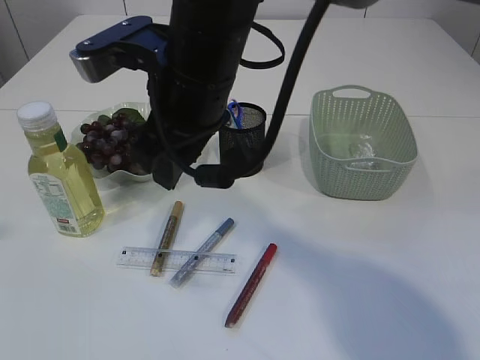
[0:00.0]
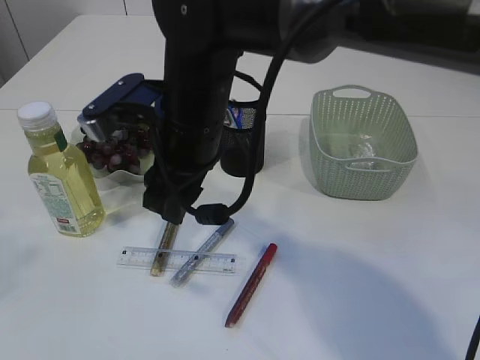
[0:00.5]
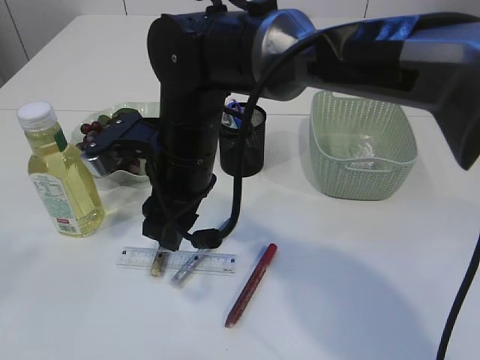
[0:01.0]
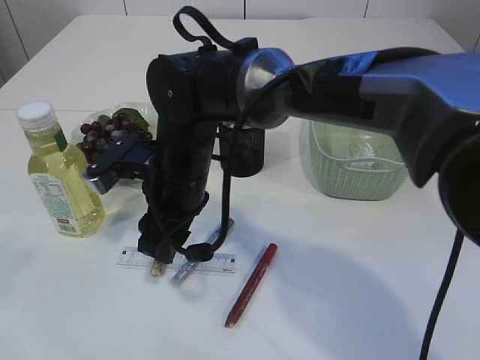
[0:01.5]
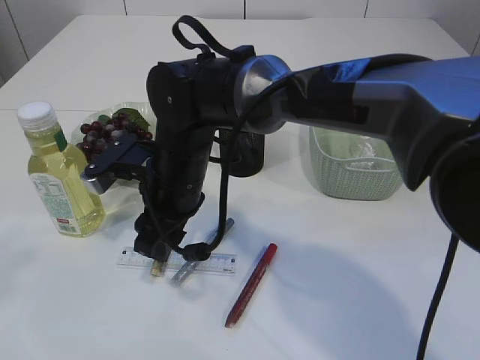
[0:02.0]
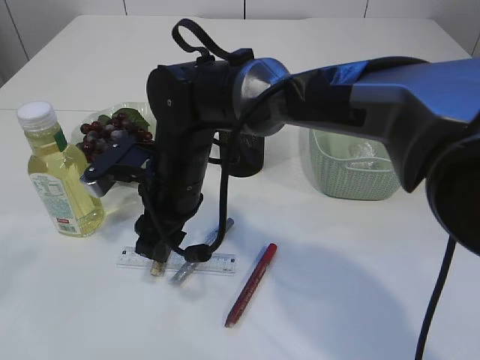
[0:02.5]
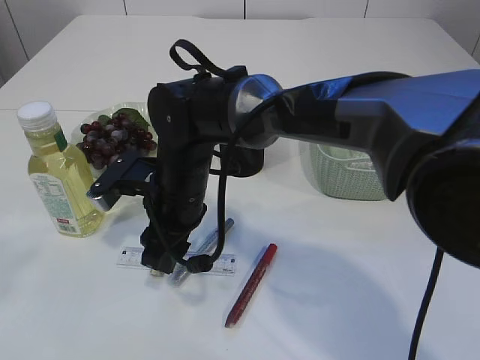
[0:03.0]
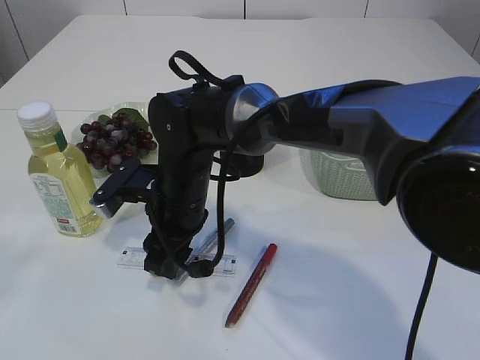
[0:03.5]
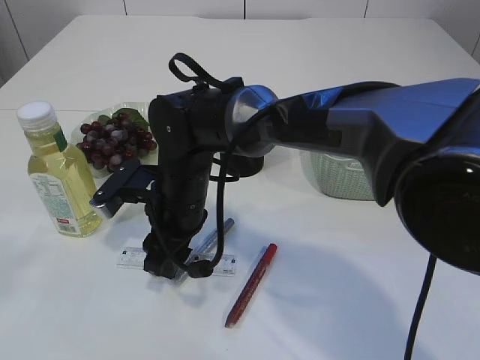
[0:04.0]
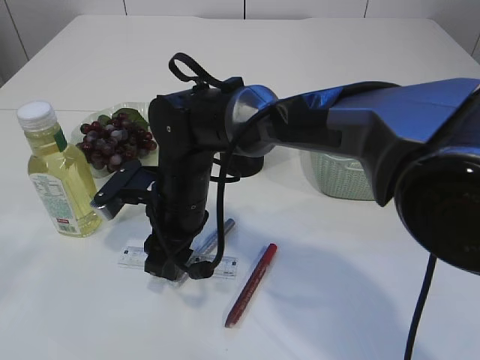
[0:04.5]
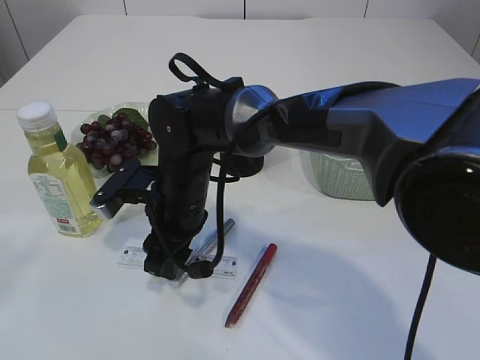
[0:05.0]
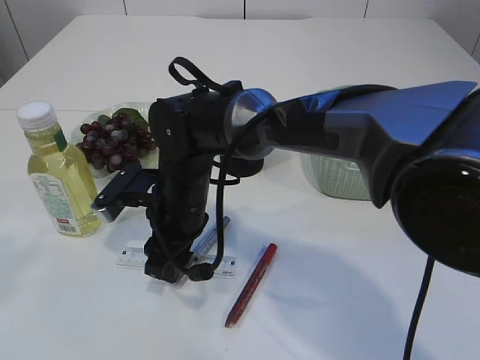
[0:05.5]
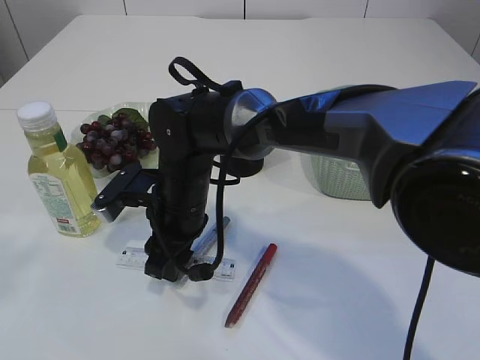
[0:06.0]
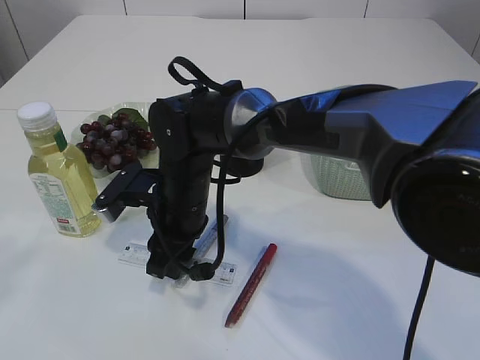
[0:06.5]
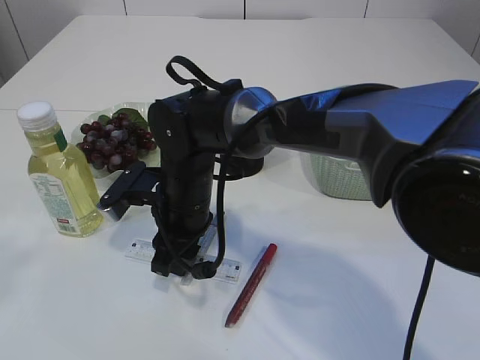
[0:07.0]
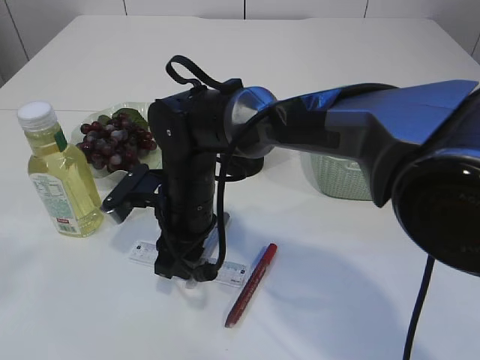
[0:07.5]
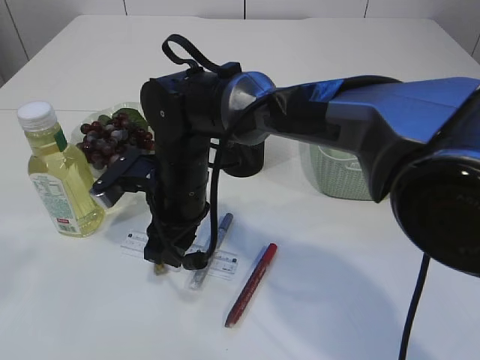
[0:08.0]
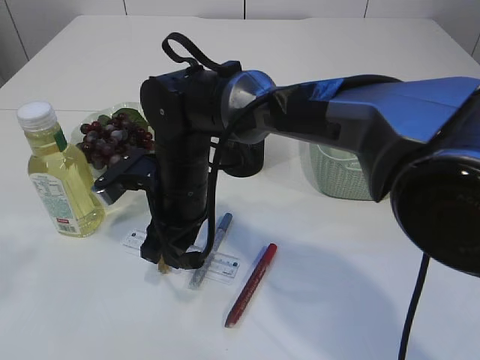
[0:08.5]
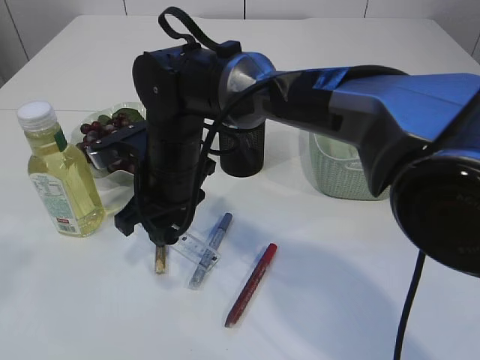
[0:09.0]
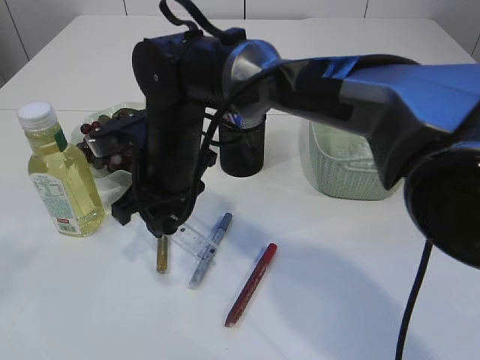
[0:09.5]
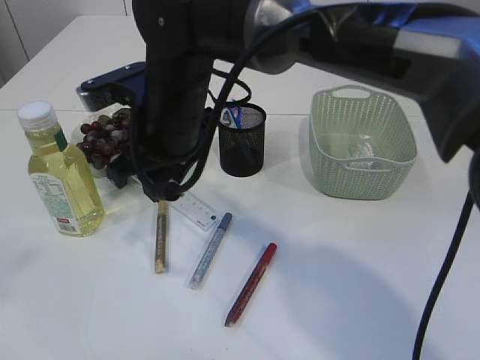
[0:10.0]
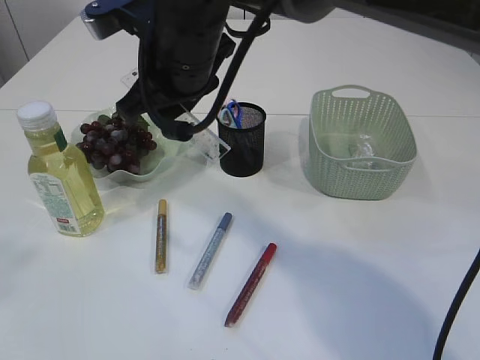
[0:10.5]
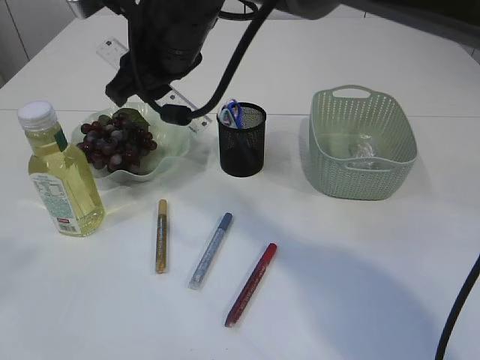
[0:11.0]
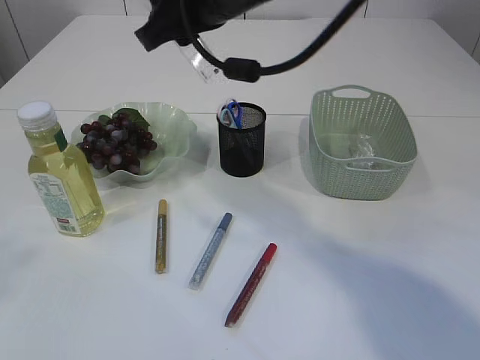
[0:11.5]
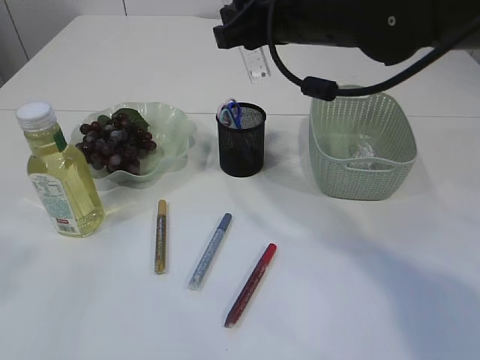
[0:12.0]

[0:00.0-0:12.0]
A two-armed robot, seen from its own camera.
Step, 0:00.0 to 0:10.0: pick up the ruler.
0:00.0 to 0:02.0: The right gripper shifts some 15 cm downward.
0:04.0 to 0:06.0: Both grippers stay put.
0:06.0 to 0:08.0: The grippers move only a little.
0:08.0 to 0:10.0: The right gripper heads upward, covering some 10 cm.
0:10.0 to 0:12.0: The right gripper moves to the right and upward, about 15 cm.

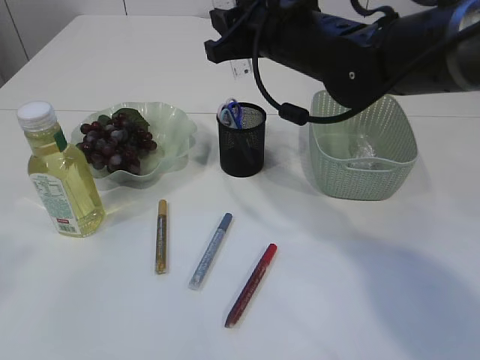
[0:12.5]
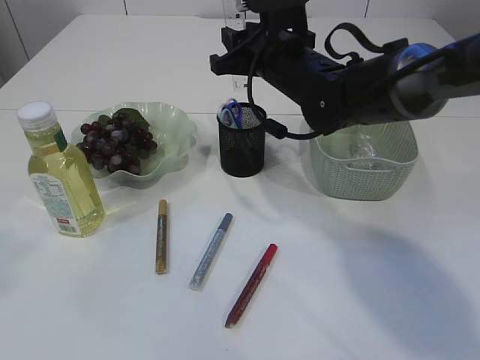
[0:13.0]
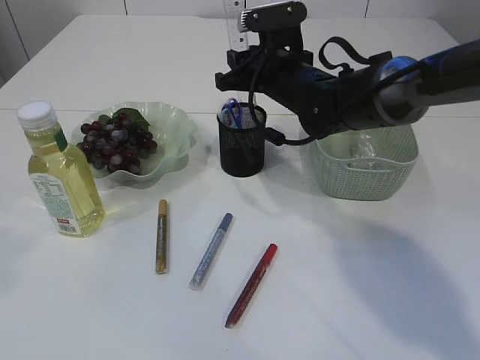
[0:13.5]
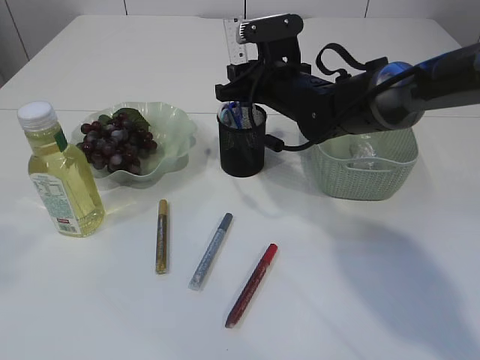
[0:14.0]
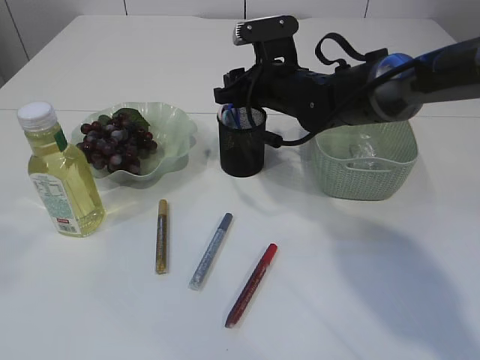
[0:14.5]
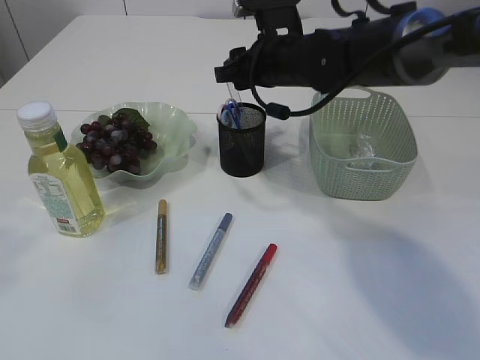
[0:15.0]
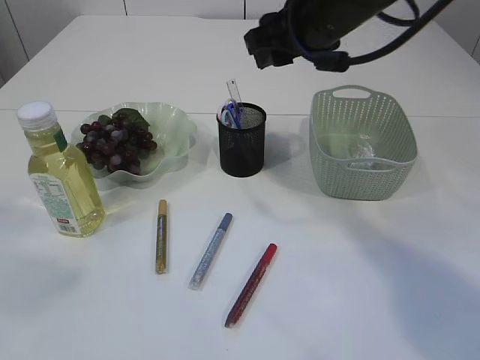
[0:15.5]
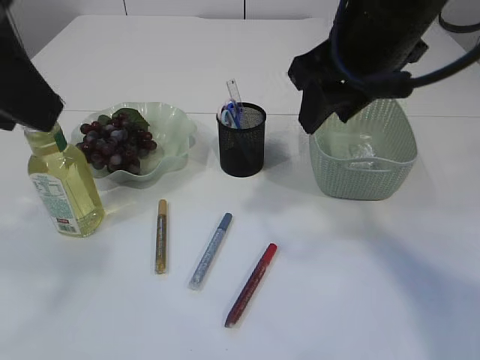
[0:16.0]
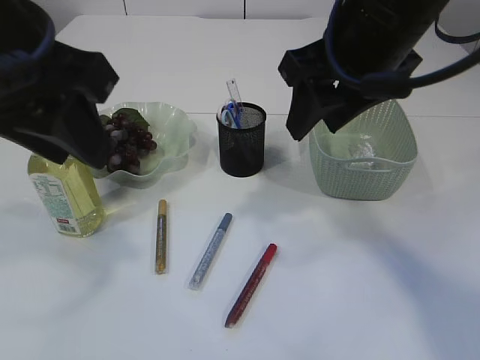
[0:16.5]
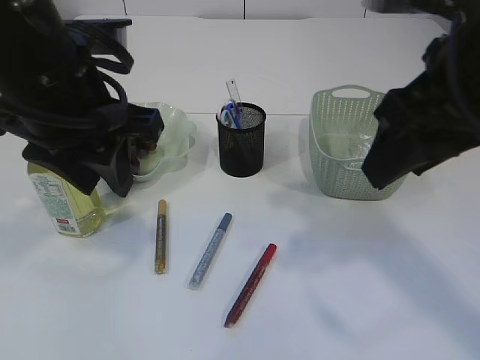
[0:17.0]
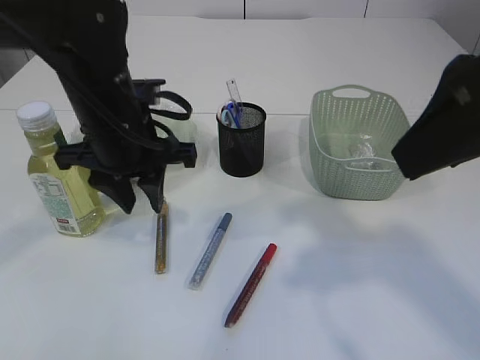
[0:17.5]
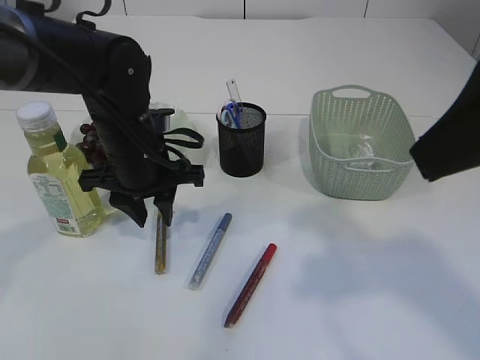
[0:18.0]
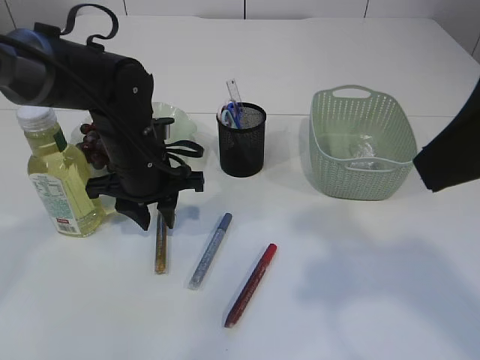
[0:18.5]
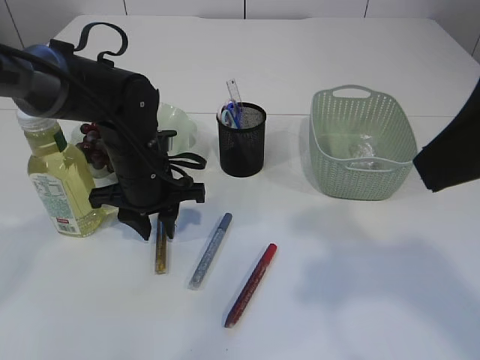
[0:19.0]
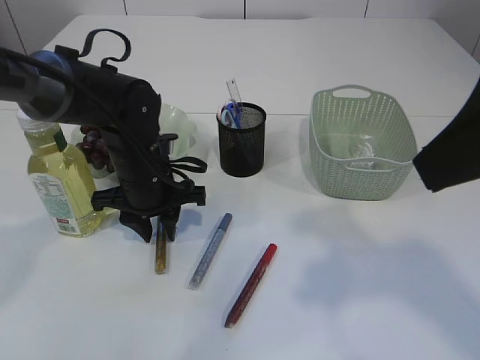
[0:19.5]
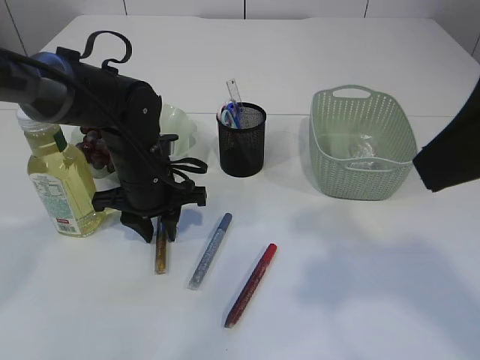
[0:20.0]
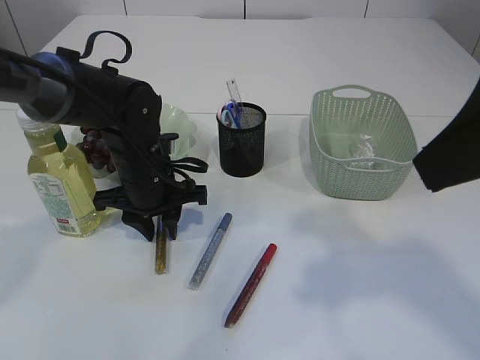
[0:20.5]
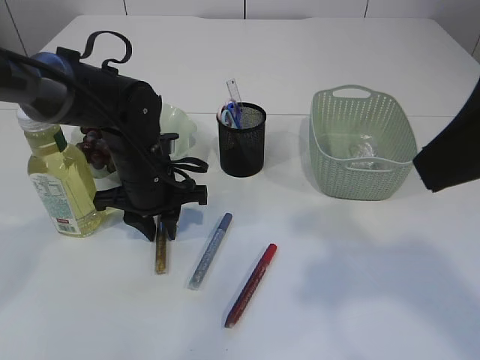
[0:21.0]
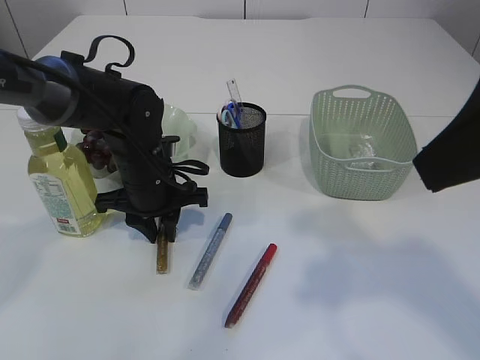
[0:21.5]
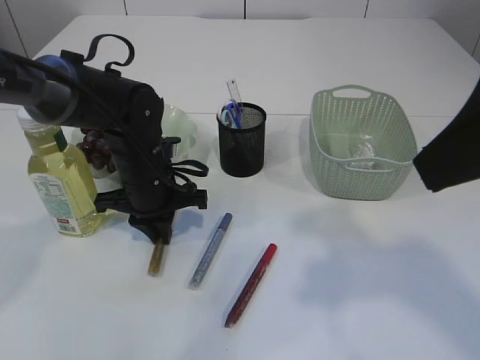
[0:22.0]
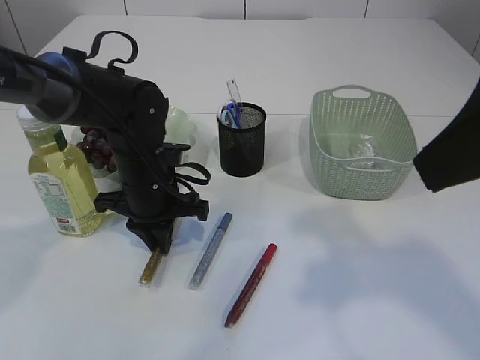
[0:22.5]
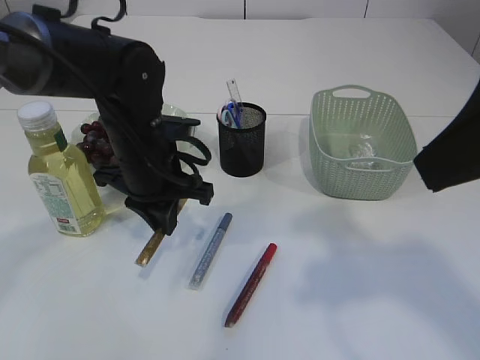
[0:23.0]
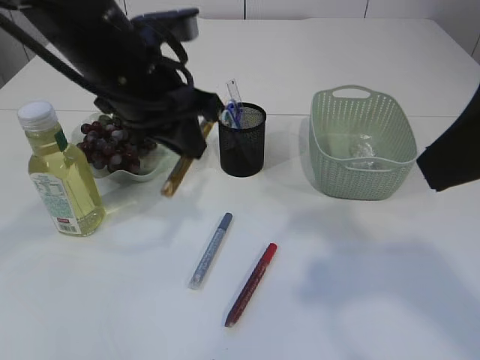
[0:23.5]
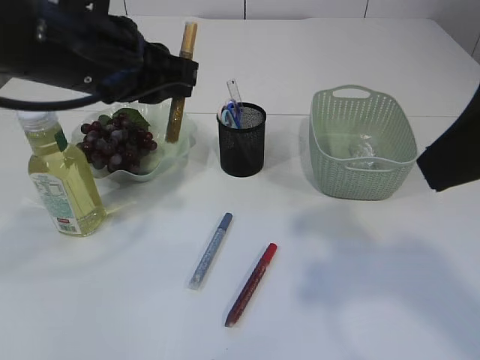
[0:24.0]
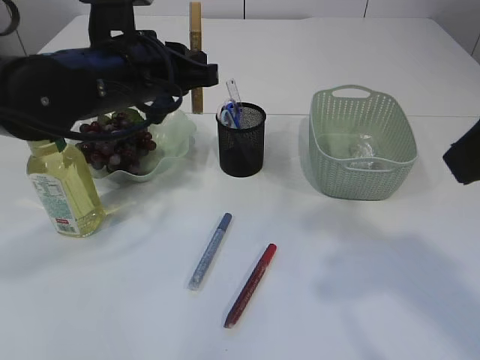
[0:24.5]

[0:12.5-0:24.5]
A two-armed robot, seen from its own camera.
Step, 0:12.5 to 0:15.0: Place the ruler into the pen holder.
Step, 0:15.5 to 0:23.0: pick up the yellow glue.
0:12.5 to 0:14.5: The right gripper travels downward and forward by roughly 10 cm.
0:14.5 to 0:16.5: The right gripper travels backward and upward by some 20 cm, while the left gripper is displaced downward, to the right and forward by roughly 15 cm.
0:16.5 to 0:18.5: The right gripper is displaced backward and to the right by roughly 15 cm; the left gripper heads downward and forward, covering some 25 cm.
0:18.5 to 0:20.5: The grippers make only small movements.
0:20.5 to 0:22.5: The left gripper closes.
0:22.5 to 0:24.5: The left gripper goes roughly 15 cm upward.

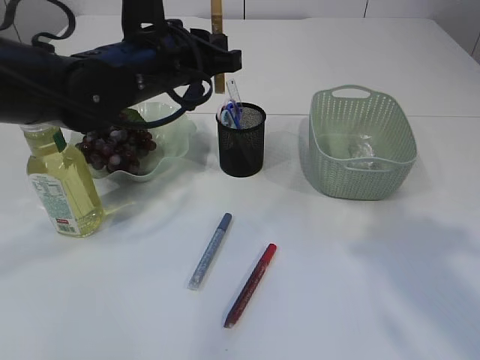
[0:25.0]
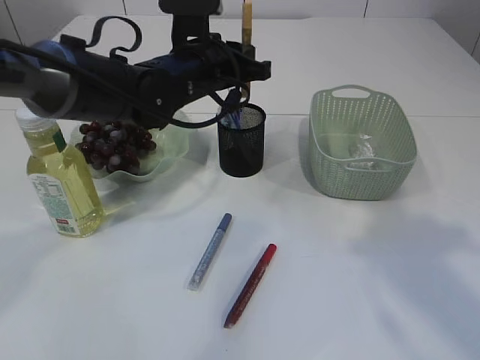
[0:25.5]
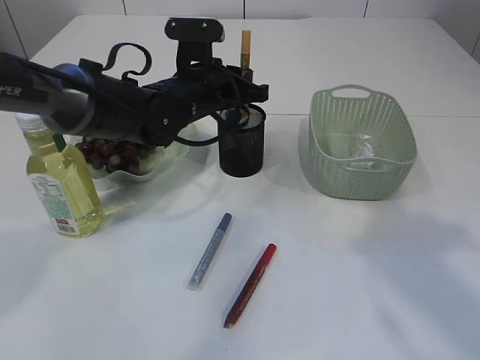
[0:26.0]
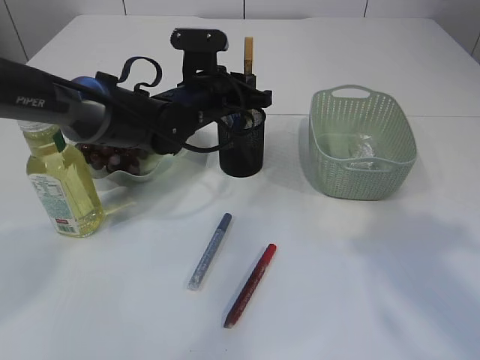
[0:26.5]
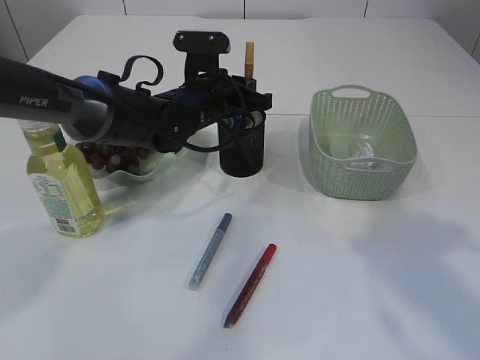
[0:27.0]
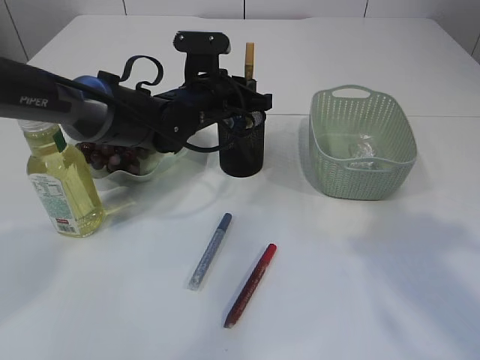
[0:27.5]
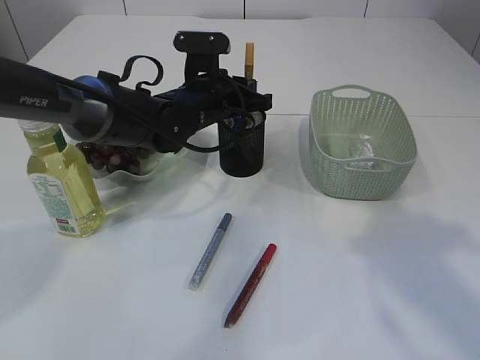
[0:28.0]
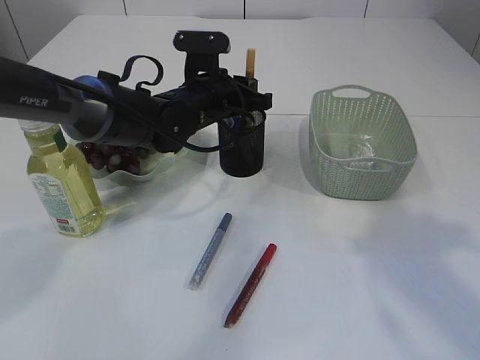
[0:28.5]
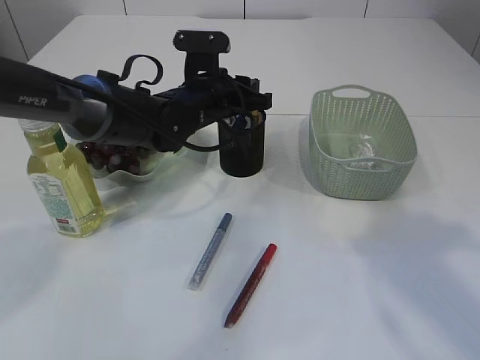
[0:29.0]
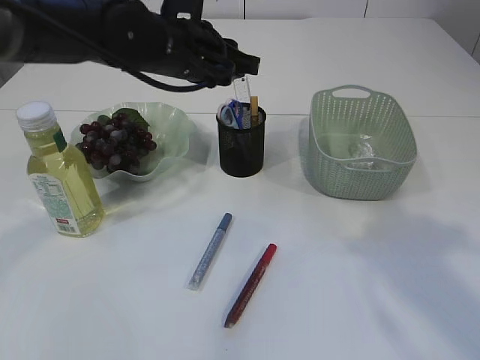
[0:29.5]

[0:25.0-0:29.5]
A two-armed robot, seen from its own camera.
0:25.0 to 0:27.0: The left gripper travels downward and forward by approximately 10 cm.
0:27.0 to 0:29.5: The left gripper goes about 10 cm upward.
